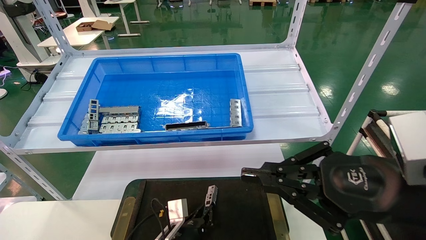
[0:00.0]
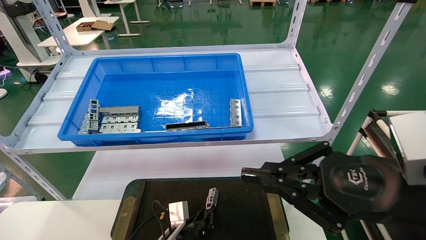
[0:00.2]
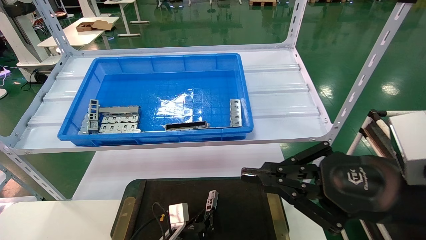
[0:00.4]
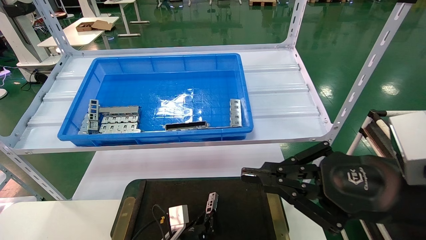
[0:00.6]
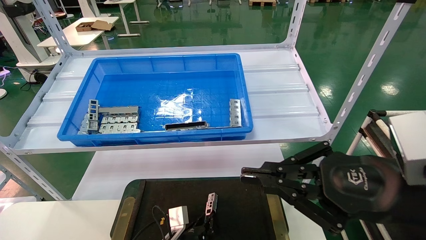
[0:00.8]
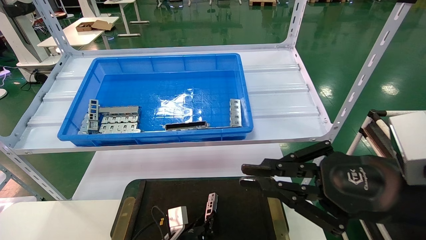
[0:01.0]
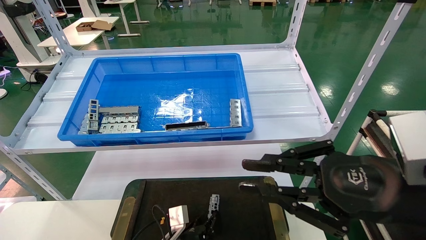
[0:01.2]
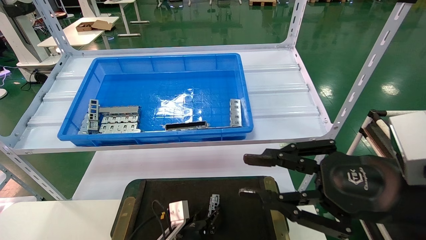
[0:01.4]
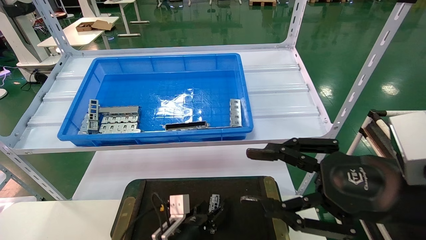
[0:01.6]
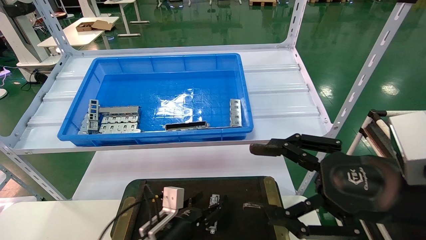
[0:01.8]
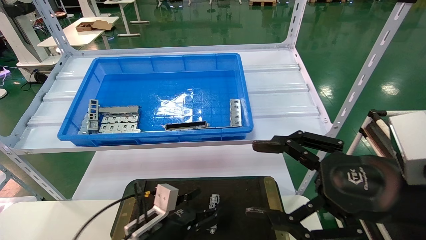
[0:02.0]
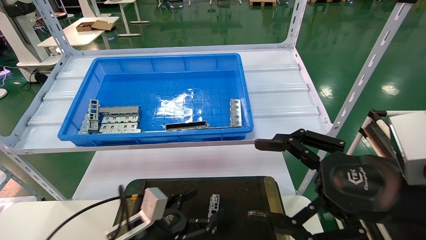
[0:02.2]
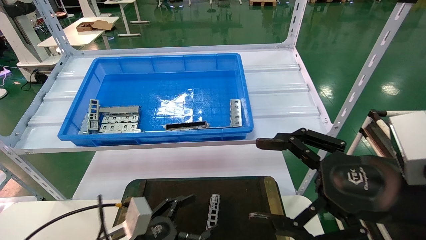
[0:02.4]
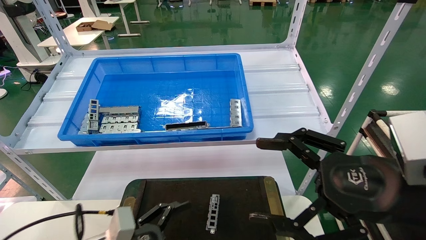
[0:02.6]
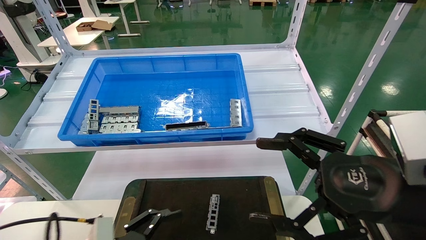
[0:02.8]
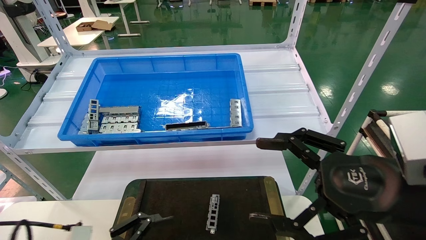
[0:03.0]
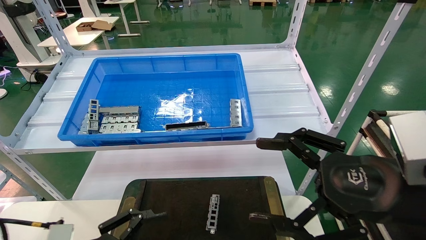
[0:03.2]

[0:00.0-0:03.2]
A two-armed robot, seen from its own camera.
Task of the whole recording: Grasp the part with one hand and place it on the black container.
0:00.0 to 0:01.6: The left gripper opens; the right gripper opens.
0:01.6 to 0:03.2: The right gripper opens up, while the left gripper shifts approximately 25 cm to the left, backward and upward, and opens up.
